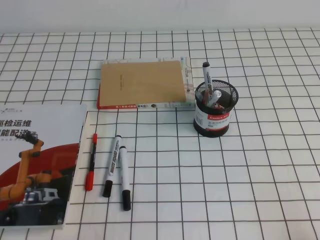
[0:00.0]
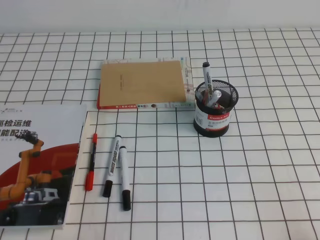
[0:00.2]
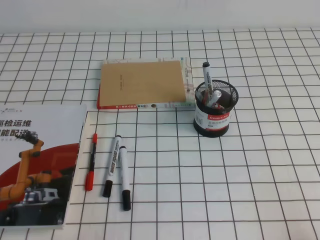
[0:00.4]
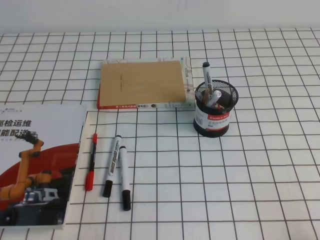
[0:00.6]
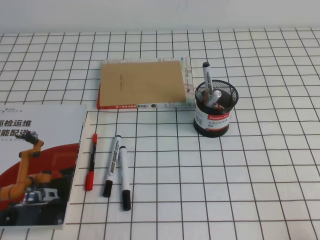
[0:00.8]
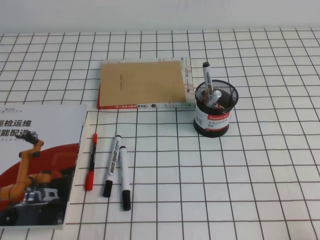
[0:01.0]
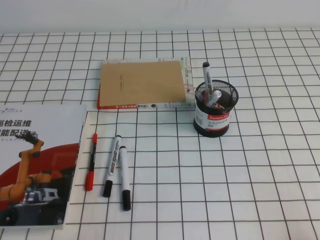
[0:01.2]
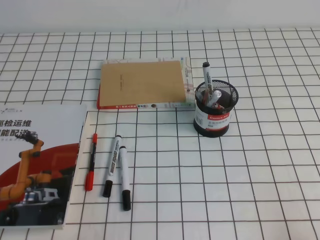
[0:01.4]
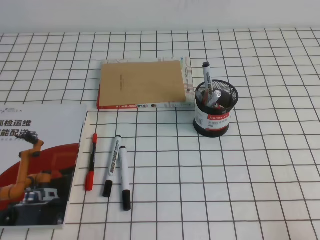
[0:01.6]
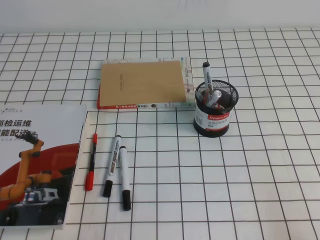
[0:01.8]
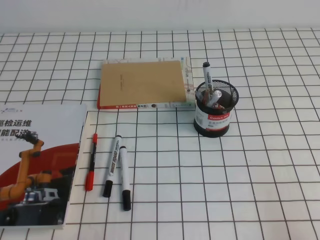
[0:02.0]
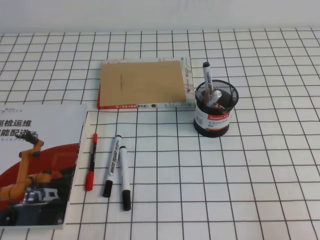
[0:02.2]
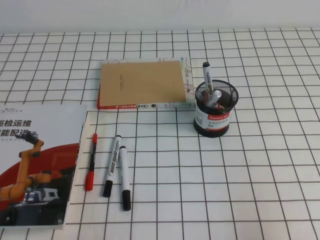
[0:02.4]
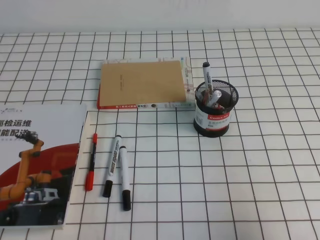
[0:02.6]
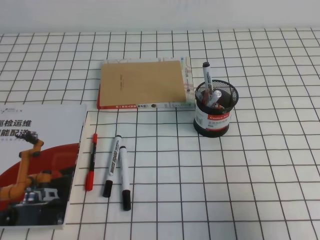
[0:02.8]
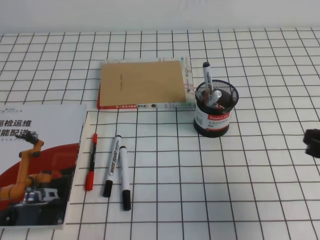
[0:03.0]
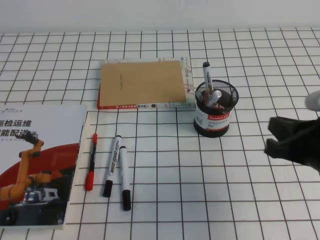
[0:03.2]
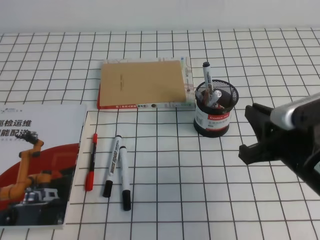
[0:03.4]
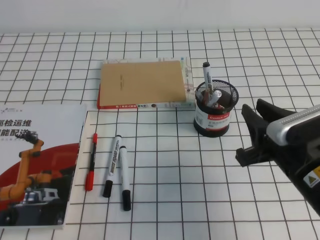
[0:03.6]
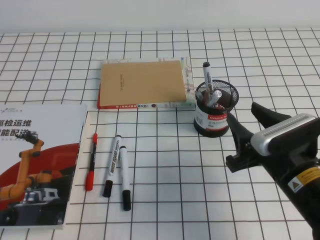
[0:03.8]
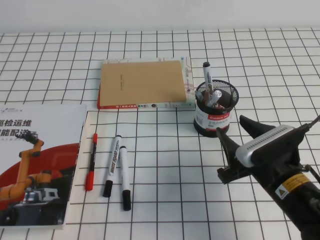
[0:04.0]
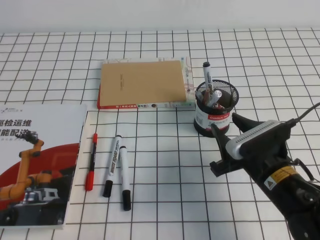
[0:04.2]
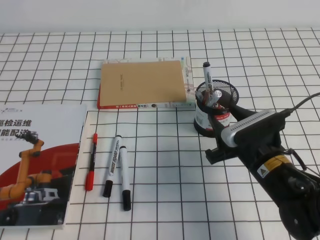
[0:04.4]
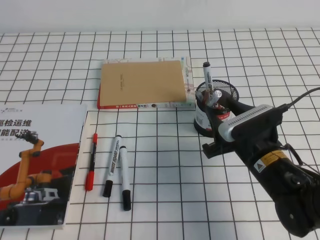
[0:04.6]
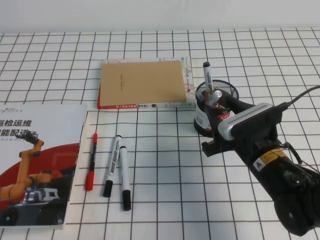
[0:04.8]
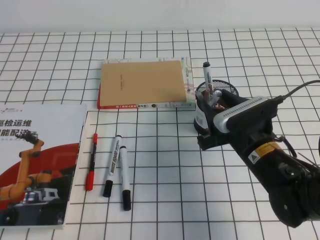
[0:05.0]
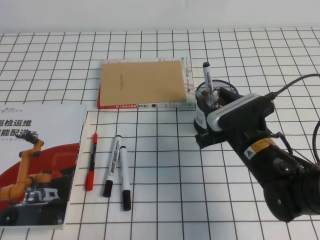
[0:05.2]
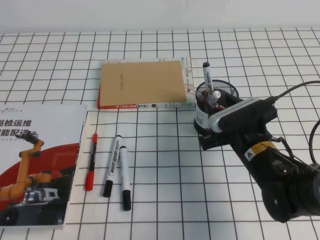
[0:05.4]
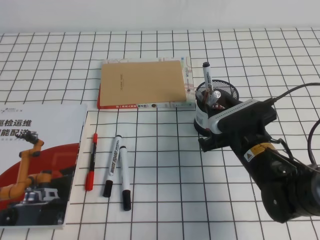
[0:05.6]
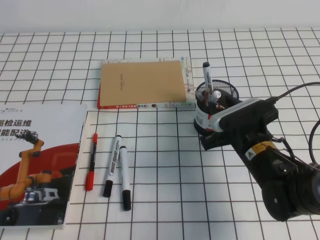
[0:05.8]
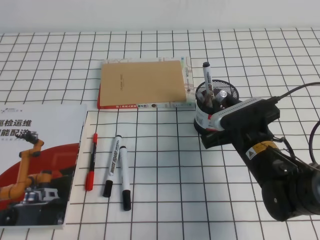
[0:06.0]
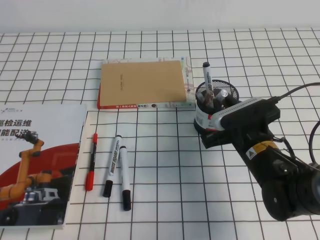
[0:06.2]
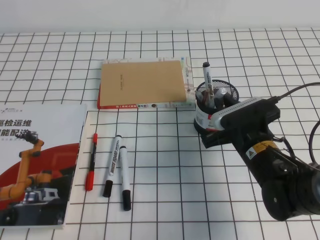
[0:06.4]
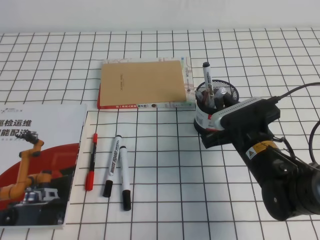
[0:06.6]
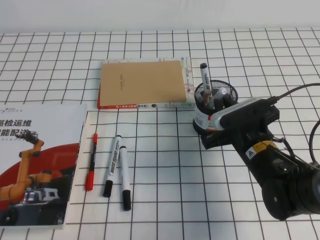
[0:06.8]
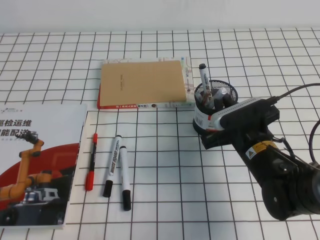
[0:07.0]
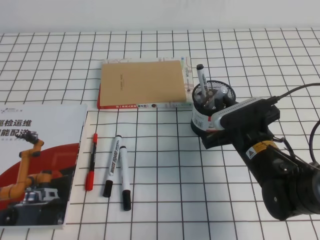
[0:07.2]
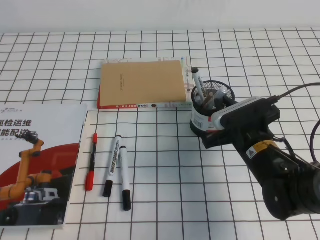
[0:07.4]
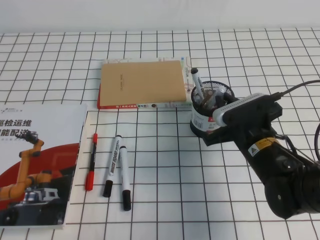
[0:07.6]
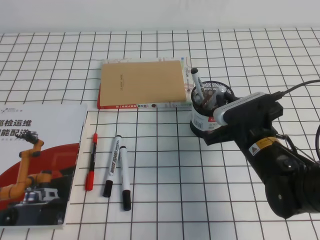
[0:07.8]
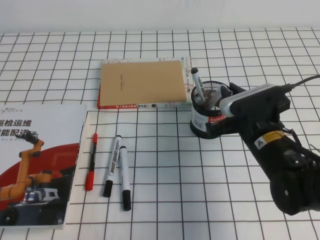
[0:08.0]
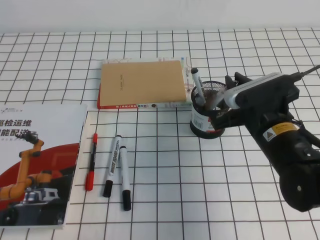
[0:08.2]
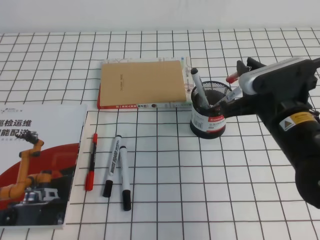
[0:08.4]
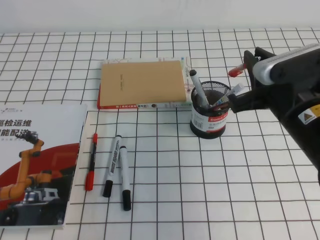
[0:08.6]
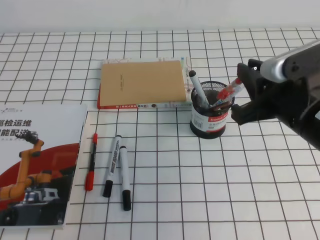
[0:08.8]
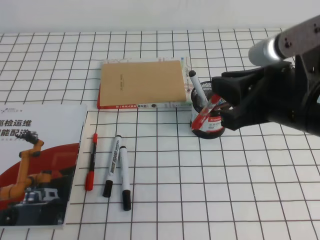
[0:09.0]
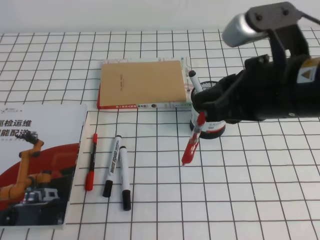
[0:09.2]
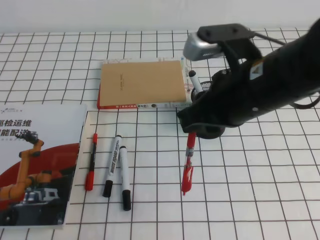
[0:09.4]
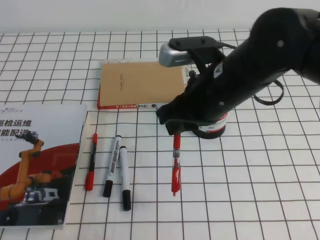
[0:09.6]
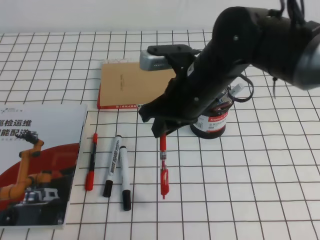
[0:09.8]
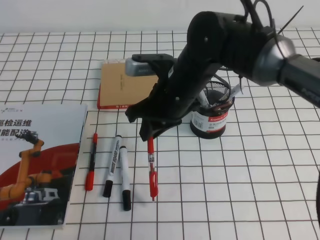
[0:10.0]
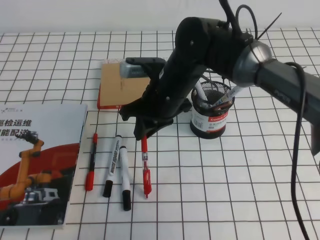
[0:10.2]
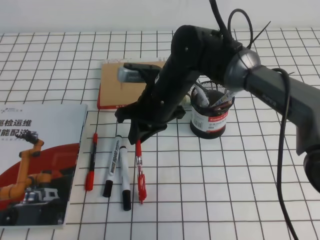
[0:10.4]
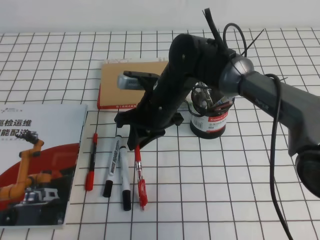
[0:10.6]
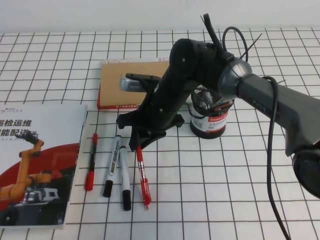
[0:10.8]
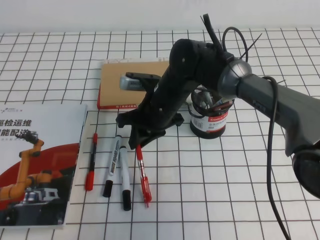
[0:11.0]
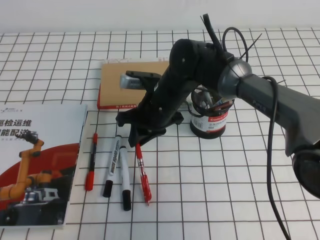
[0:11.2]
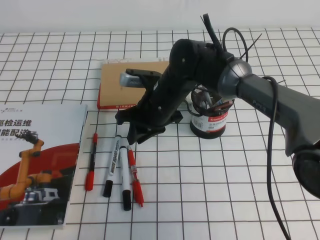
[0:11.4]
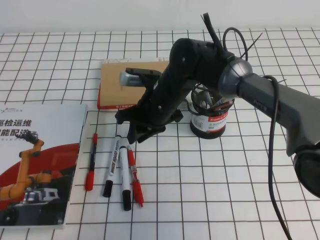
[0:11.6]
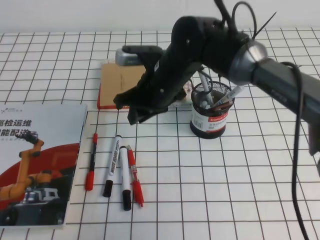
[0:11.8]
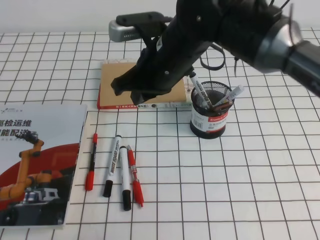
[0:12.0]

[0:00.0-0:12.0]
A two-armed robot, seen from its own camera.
0:01.6 to 0:03.0: The right gripper travels forward and upward by about 15 cm.
0:03.0 to 0:04.4: The right gripper is displaced to the left, downward and forward by approximately 15 cm, and opens.
0:04.4 to 0:06.0: There are only small adjustments of the grippers.
0:06.0 to 0:07.6: The right gripper closes its fingers.
0:07.6 to 0:09.0: The right gripper goes roughly 20 cm upward and backward.
0:09.0 to 0:10.4: The right gripper travels to the left, forward and downward by about 25 cm.
0:10.4 to 0:12.0: The right gripper moves upward, some 5 cm.

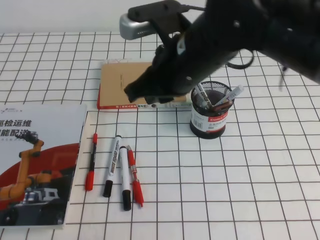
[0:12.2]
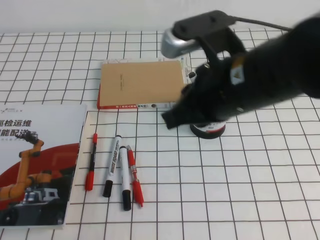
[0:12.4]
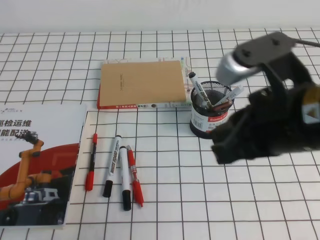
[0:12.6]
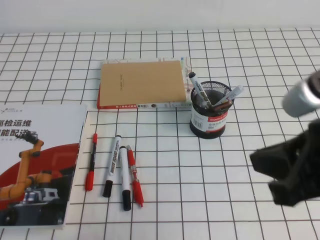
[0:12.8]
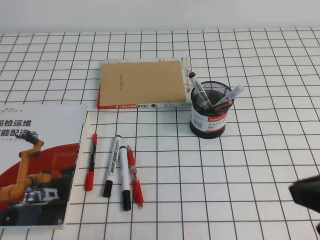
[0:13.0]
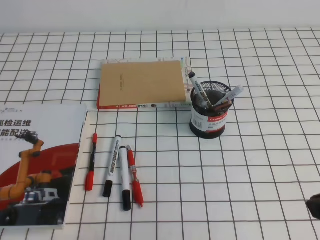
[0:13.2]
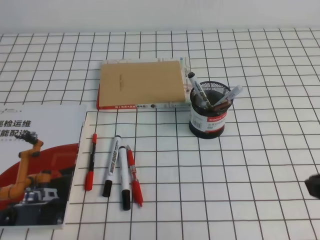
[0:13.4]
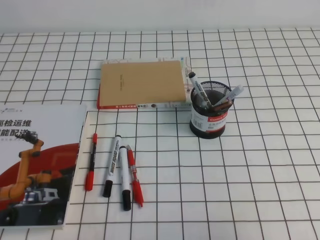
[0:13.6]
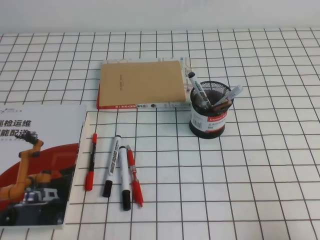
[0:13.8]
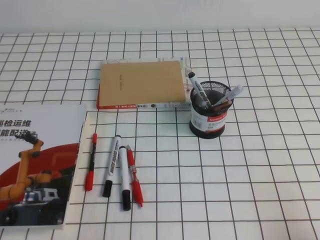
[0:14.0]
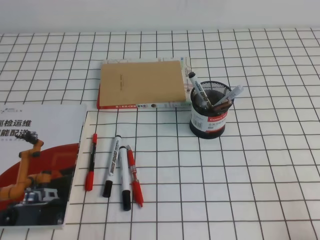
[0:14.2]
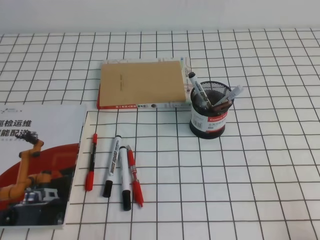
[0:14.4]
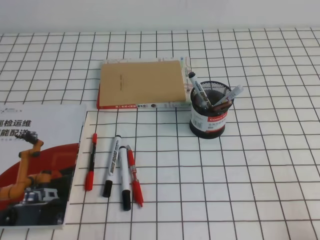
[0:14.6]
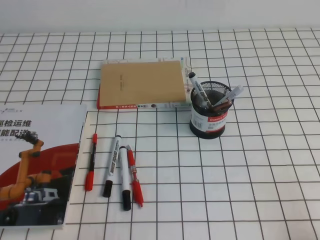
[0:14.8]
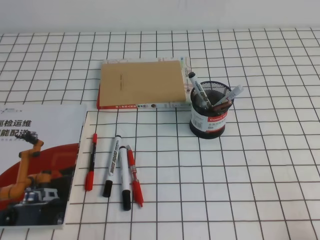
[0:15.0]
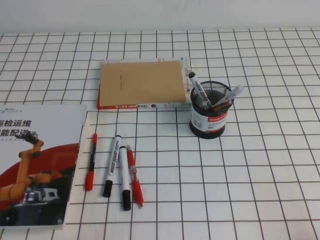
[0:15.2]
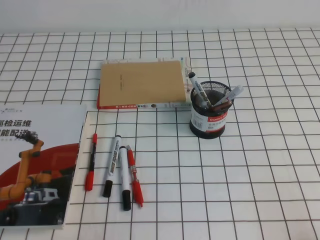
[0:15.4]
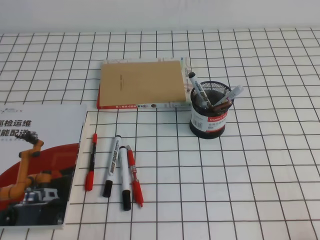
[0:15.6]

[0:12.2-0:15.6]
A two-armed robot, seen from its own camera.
Step, 0:12.2 to 0:15.6: Pick up the pen from the pen holder.
0:12.2 to 0:13.8: The right gripper goes about 35 cm to the right and backward.

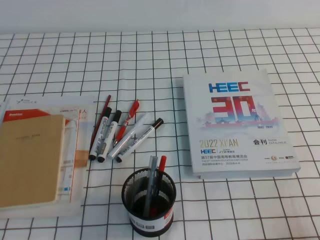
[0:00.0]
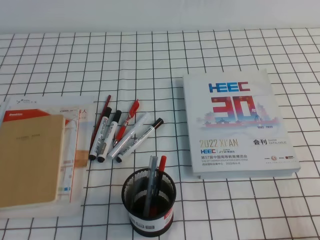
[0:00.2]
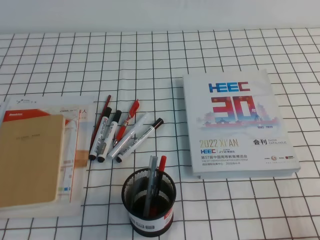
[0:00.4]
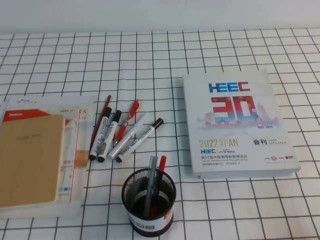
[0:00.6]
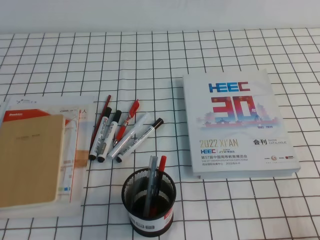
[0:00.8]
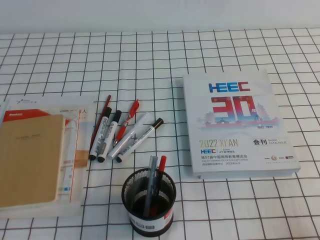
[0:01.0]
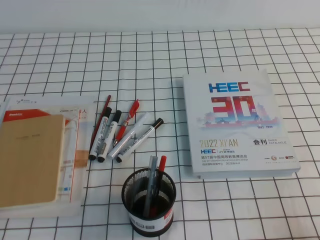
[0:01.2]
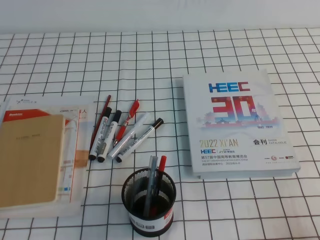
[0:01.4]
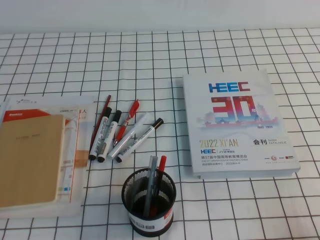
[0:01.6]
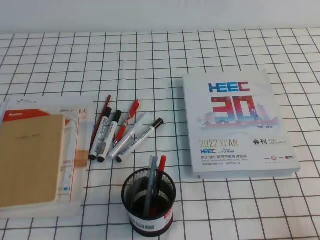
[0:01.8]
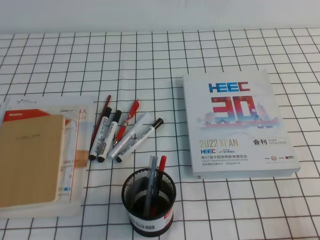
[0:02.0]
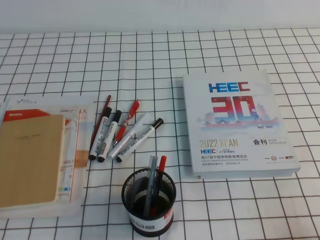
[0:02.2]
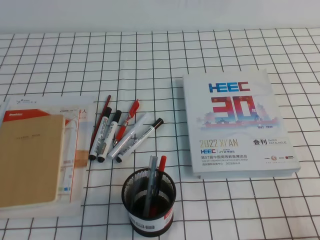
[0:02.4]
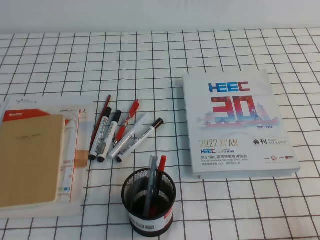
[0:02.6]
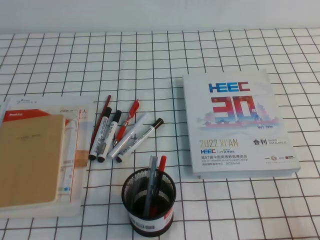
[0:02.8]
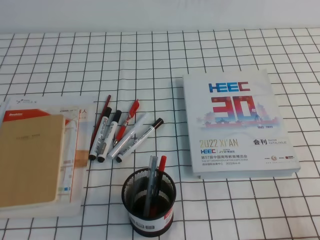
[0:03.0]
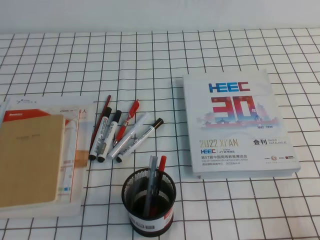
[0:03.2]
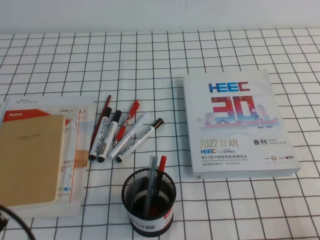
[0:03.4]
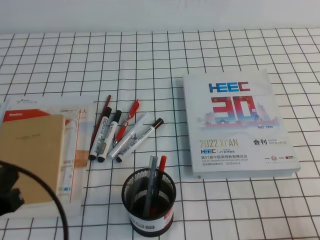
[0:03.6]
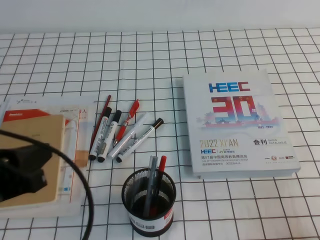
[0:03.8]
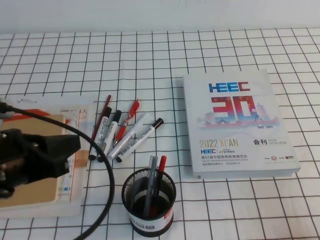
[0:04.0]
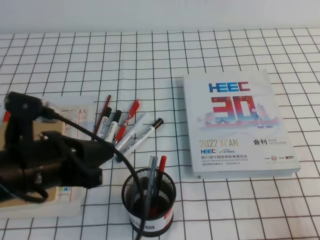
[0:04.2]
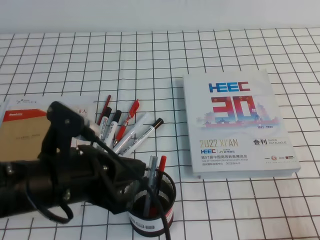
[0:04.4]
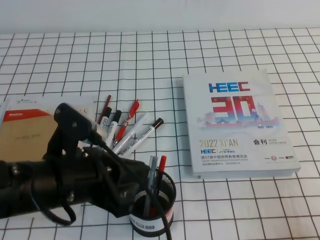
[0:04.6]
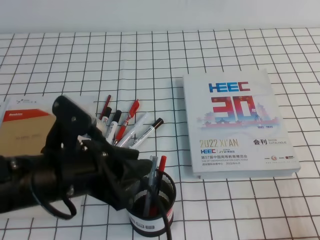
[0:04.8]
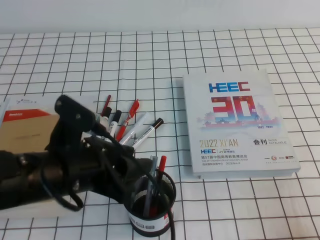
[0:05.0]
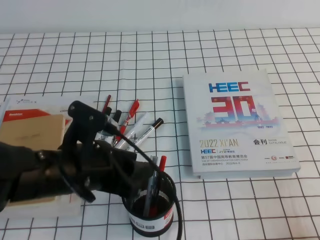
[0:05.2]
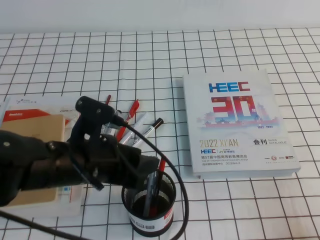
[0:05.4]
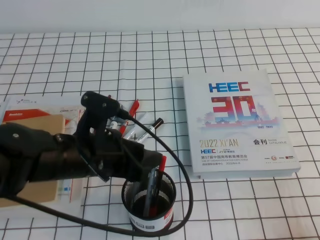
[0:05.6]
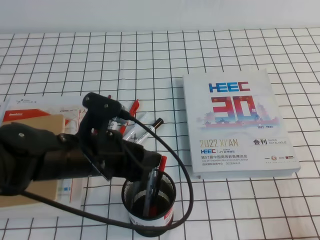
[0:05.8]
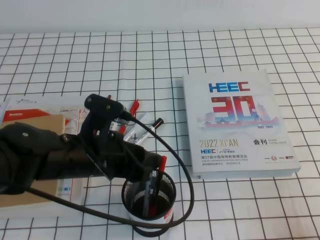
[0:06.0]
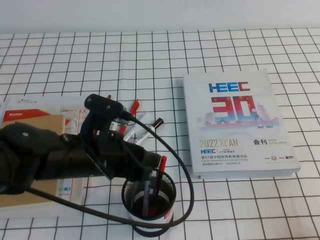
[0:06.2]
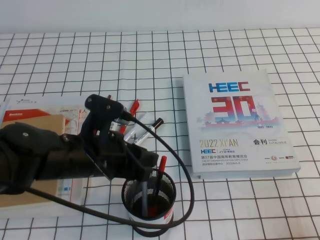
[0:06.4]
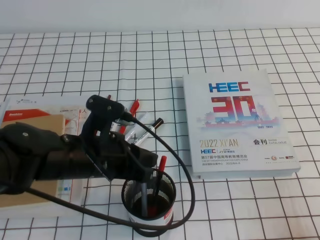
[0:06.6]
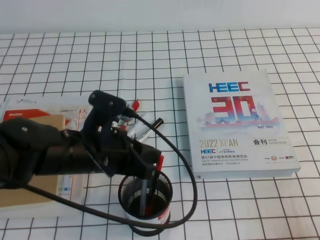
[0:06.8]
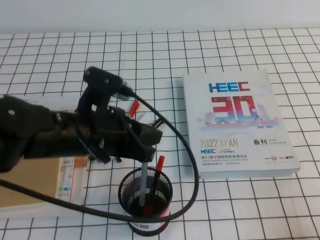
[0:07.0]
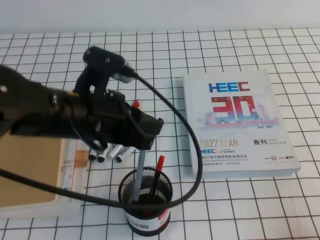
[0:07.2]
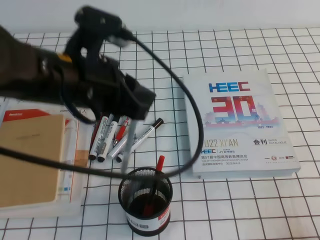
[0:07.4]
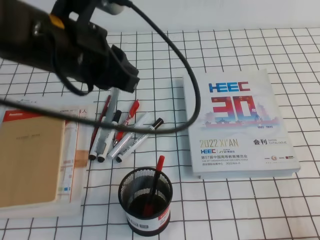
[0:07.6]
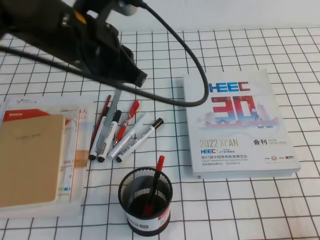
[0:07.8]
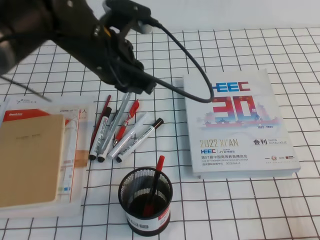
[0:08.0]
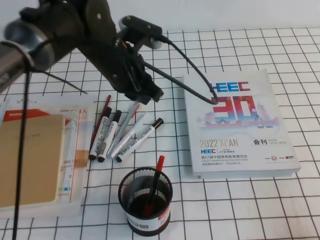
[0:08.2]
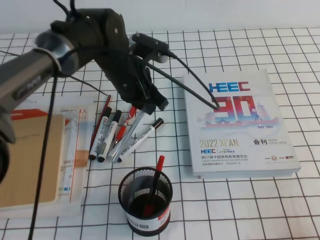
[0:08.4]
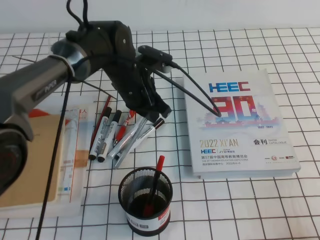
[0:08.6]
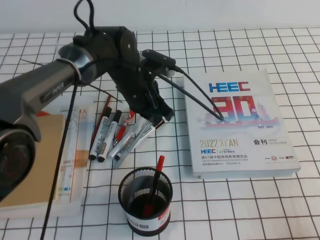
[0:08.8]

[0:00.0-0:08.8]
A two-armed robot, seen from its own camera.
0:00.0 to 0:01.4: The two grippers keep their place.
0:03.0 to 0:04.4: The left gripper heads to the right, forward and upward, covering approximately 20 cm.
0:04.4 to 0:05.8: The left gripper goes roughly 5 cm forward, and opens its fingers.
0:05.8 to 0:07.4: The left gripper shifts approximately 10 cm upward, and closes up.
0:07.4 to 0:08.8: The left gripper goes about 20 cm forward, downward and to the right.
